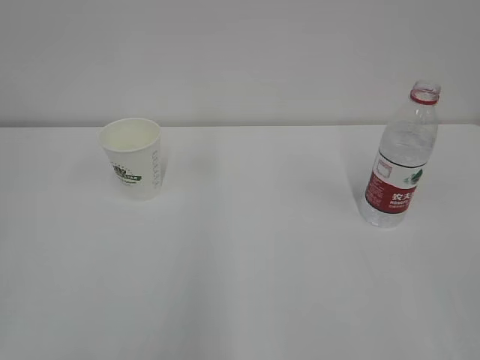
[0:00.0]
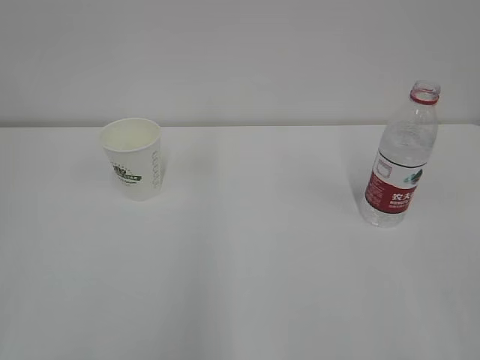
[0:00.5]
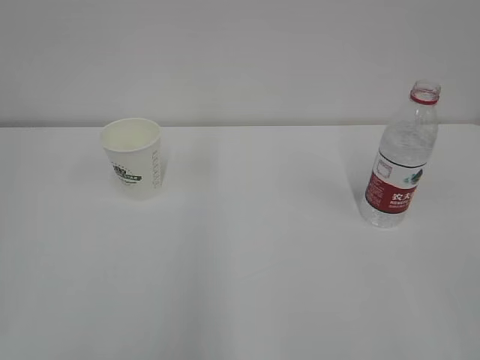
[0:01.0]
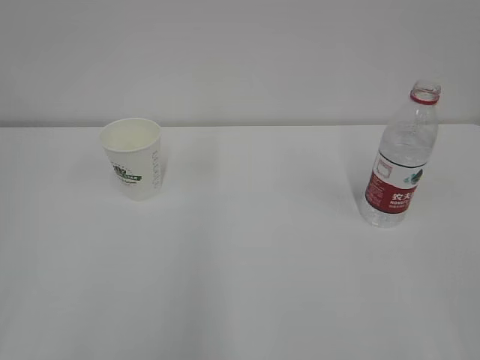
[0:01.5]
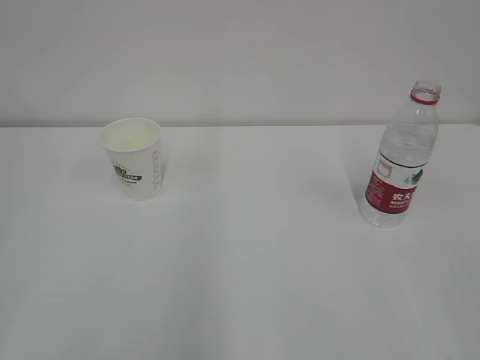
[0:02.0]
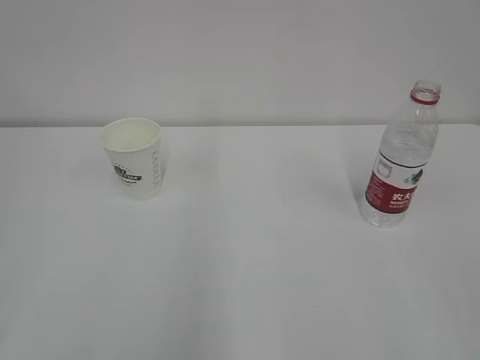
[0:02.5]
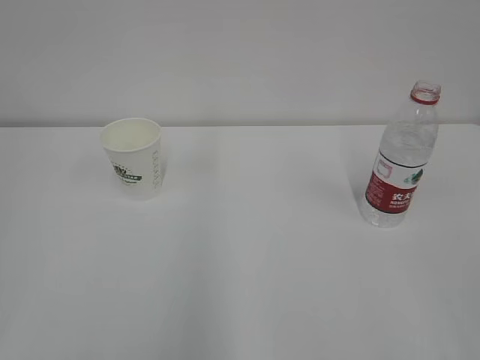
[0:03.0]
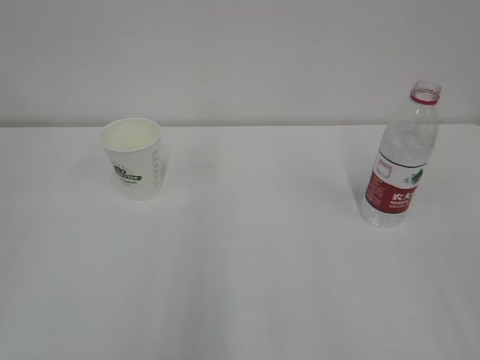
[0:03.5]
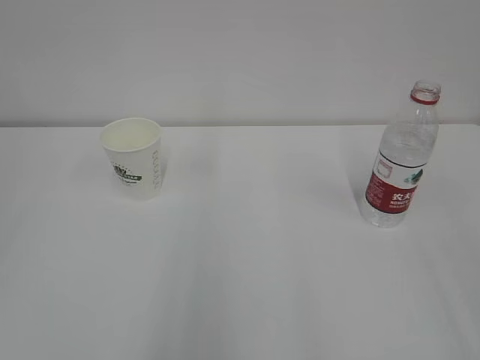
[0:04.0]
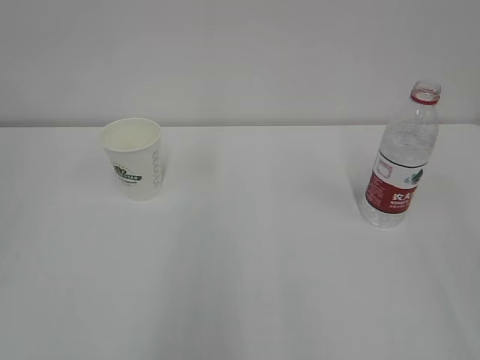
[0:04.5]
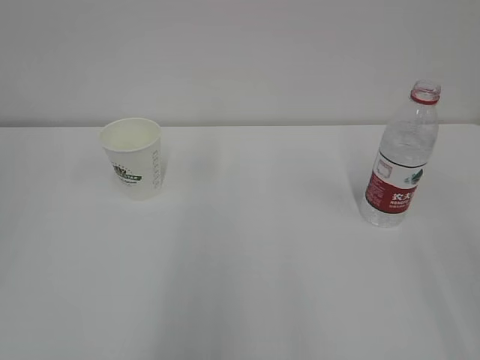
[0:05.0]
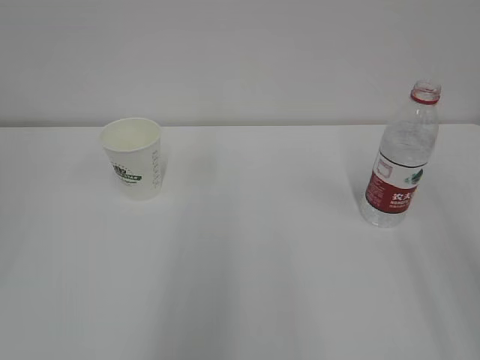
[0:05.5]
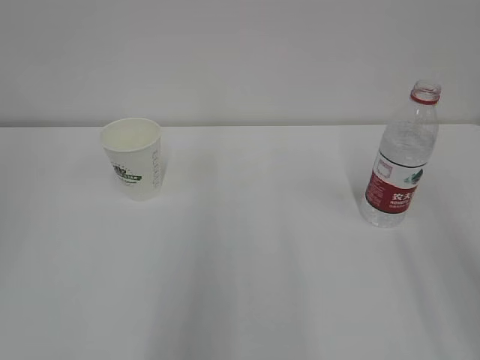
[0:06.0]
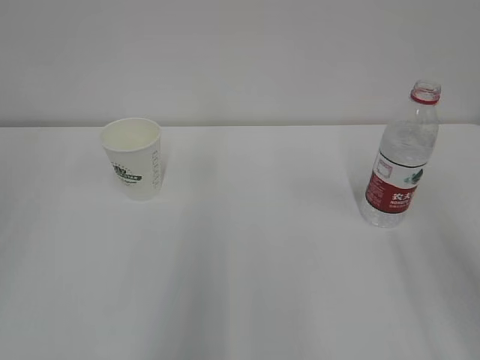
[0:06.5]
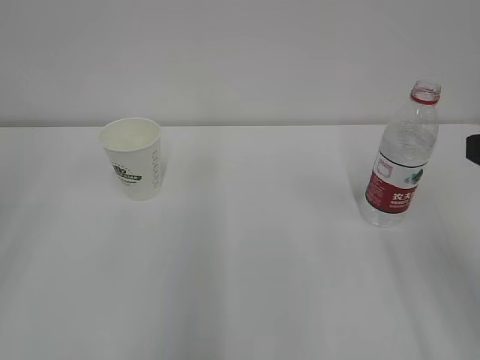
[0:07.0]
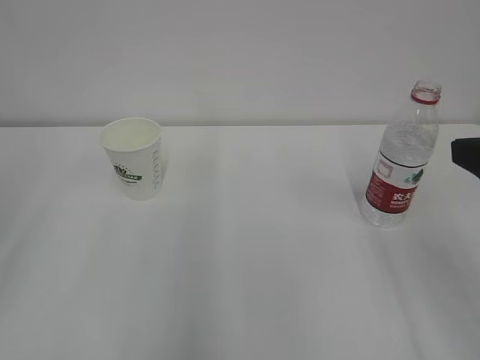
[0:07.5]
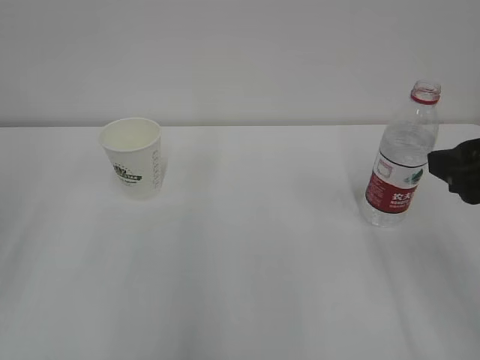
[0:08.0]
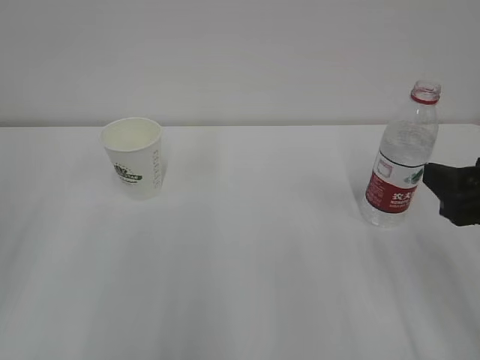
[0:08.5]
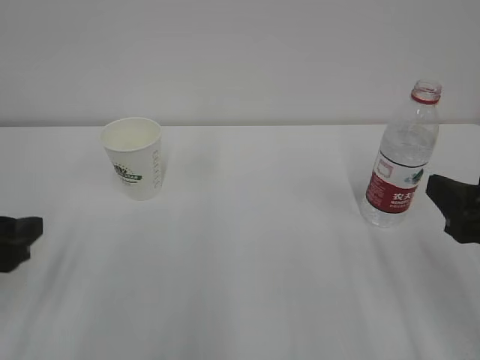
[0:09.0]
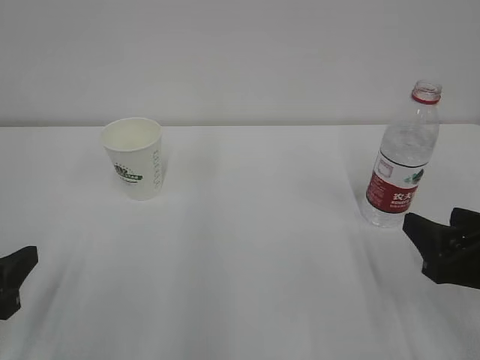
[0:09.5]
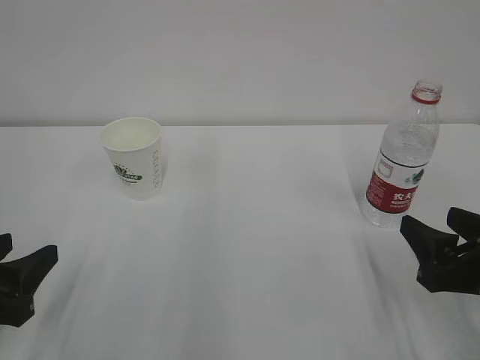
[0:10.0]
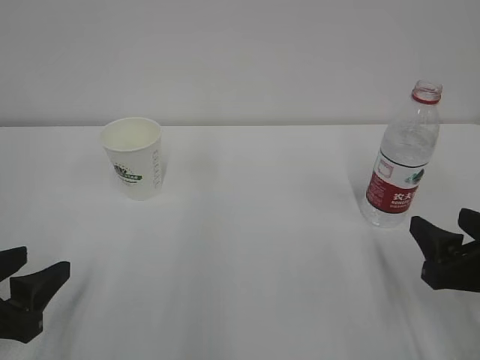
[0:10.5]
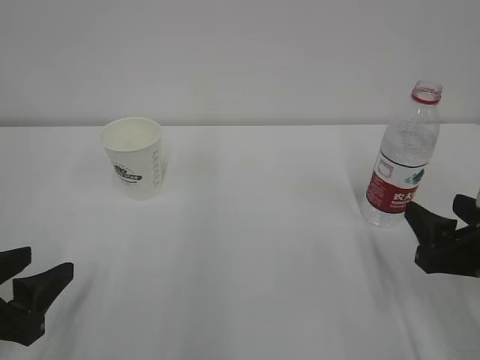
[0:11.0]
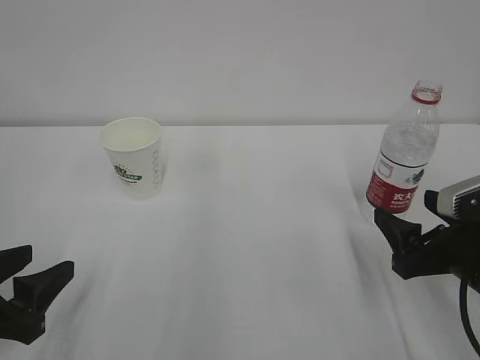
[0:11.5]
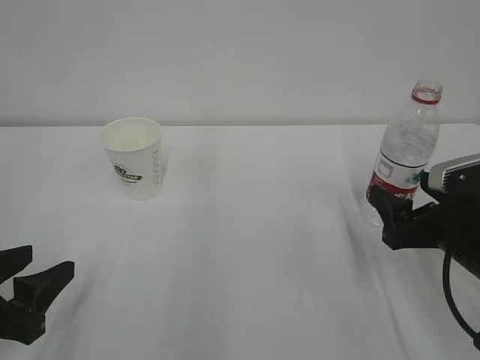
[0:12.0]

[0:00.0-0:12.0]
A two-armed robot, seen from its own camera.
0:06.0 to 0:08.0: The right gripper moves forward and downward, approximately 15 cm.
0:08.0 to 0:10.0: Both grippers travel together downward, roughly 15 cm.
0:10.0 to 0:12.0: The right gripper shifts about 5 cm forward, and opens up.

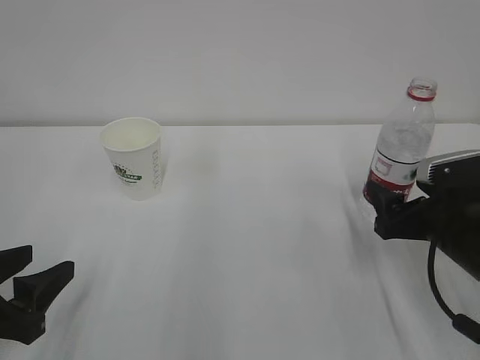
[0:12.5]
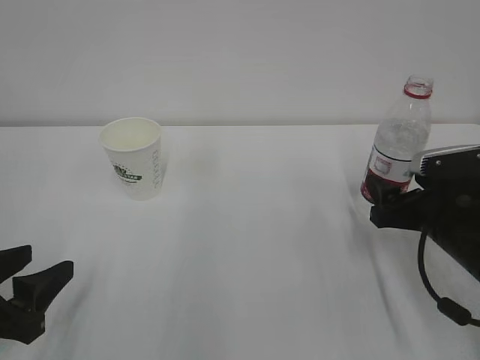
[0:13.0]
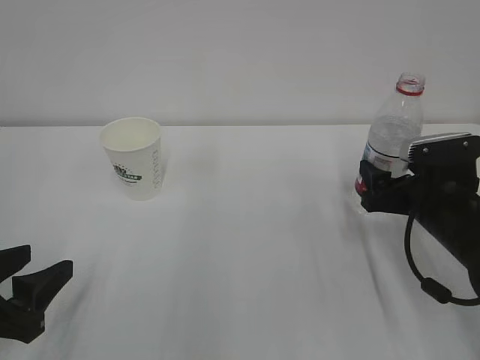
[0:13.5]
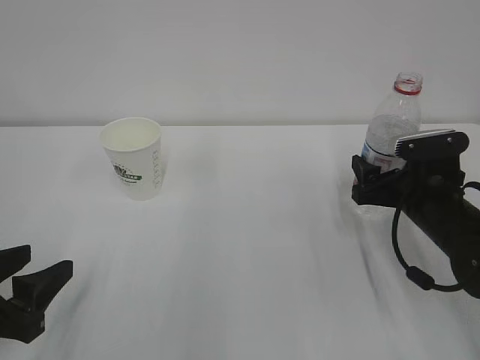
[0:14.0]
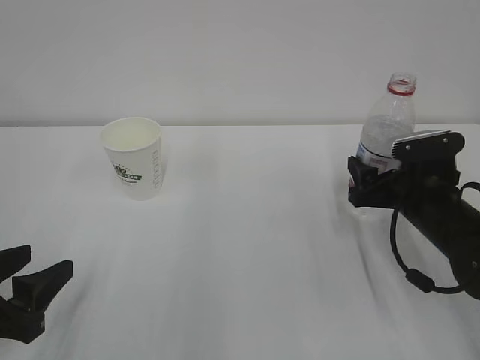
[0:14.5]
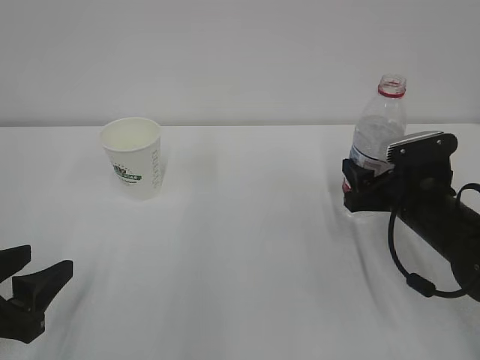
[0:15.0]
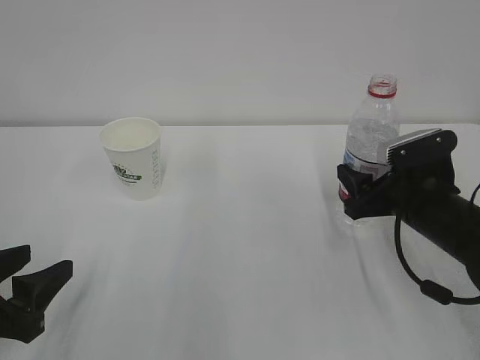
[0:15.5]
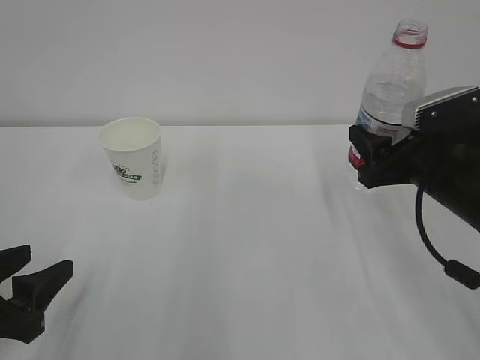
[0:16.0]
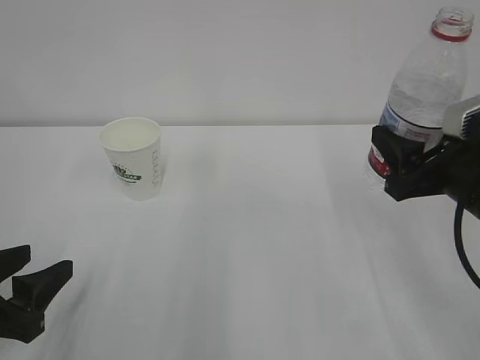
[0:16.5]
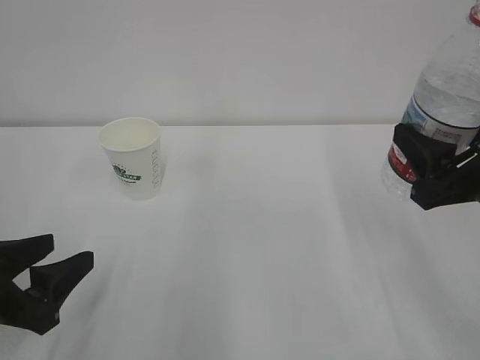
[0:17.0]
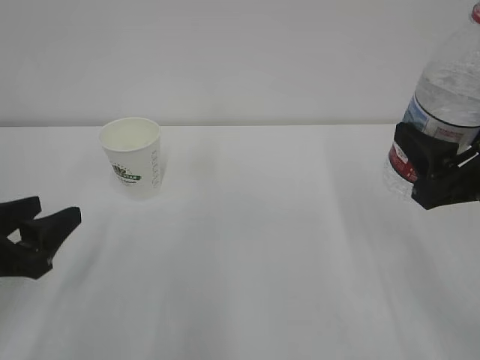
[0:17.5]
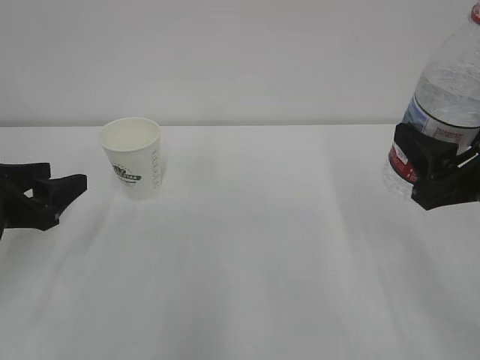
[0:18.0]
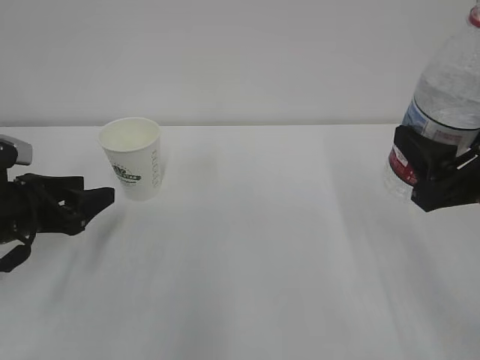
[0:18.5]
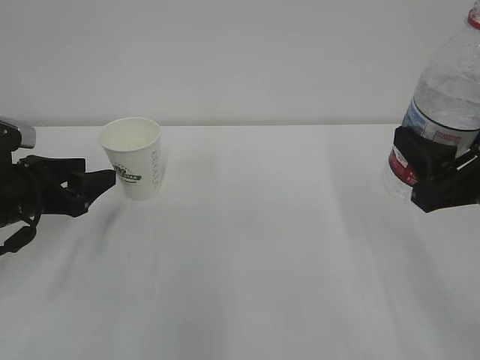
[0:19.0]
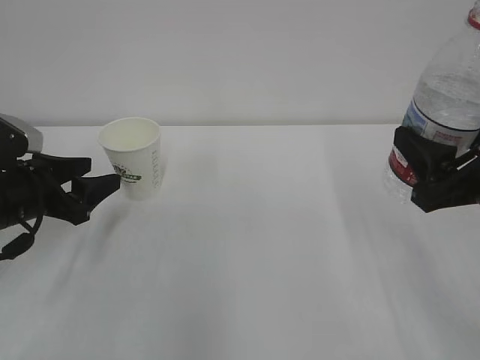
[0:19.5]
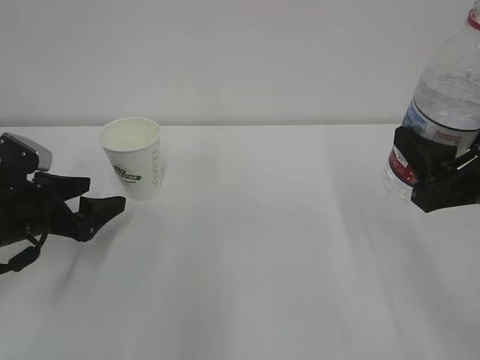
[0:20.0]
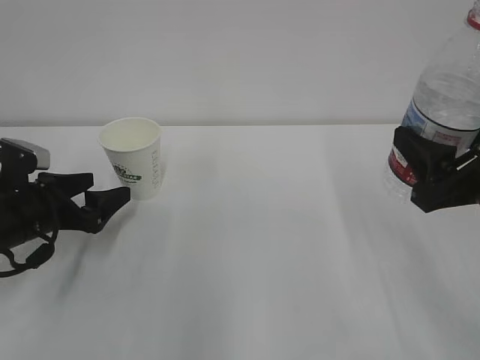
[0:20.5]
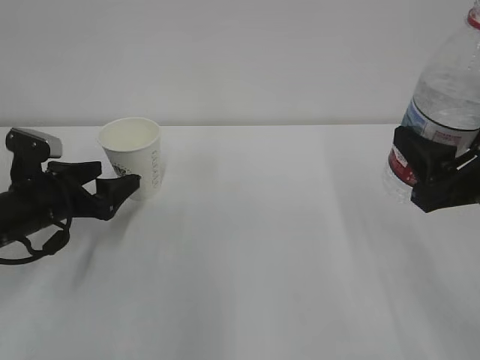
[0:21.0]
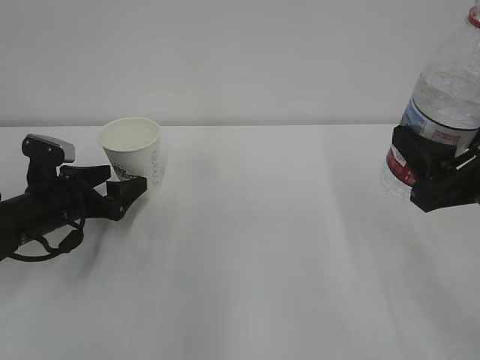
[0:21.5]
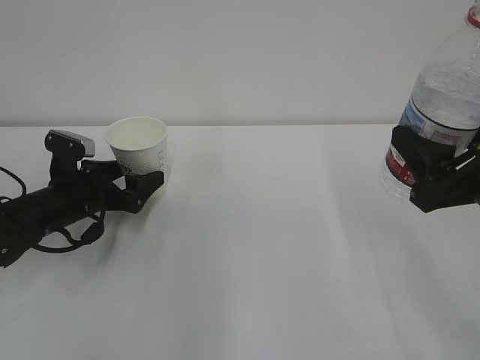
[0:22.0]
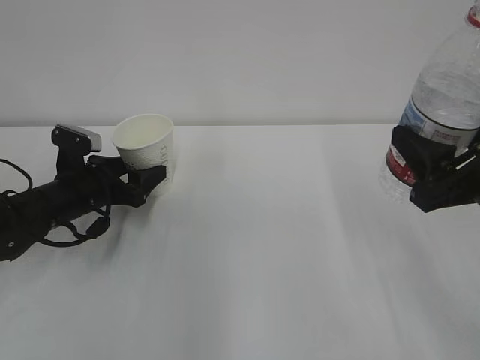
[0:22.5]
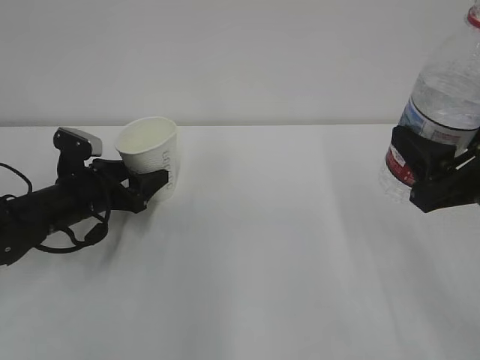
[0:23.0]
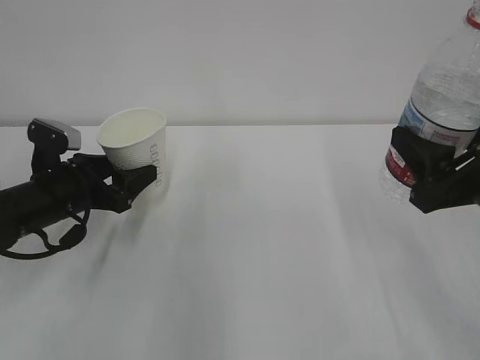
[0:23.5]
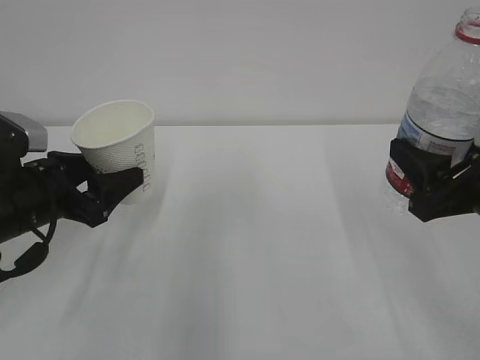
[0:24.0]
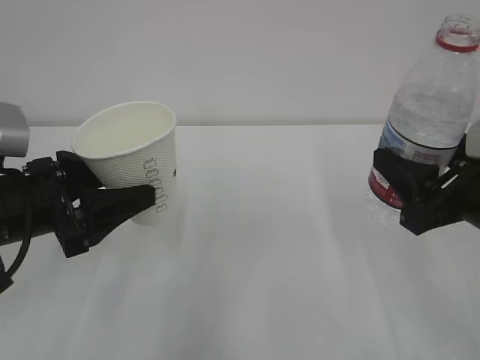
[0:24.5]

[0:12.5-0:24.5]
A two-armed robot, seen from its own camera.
0:12.5 to 0:14.5: The right gripper travels forward by some 5 cm, and closes its fingers.
0:14.5 to 0:16.5: The right gripper shifts approximately 10 cm upward and backward, and closes up.
0:16.5 to 0:18.5: The left gripper goes about 15 cm forward.
0:18.5 to 0:20.5: The left gripper opens.
0:20.5 to 0:22.5: The left gripper moves forward, about 5 cm, and closes its fingers.
0:22.5 to 0:24.5: The left gripper shifts about 15 cm backward and upward.

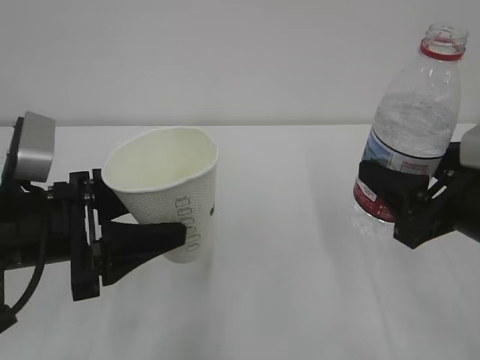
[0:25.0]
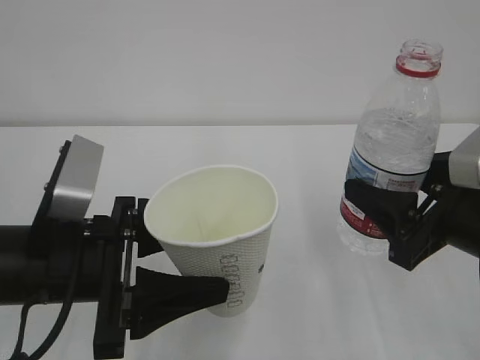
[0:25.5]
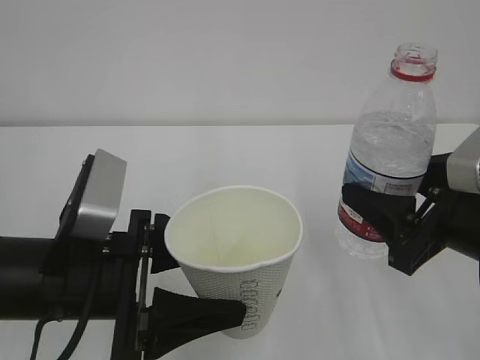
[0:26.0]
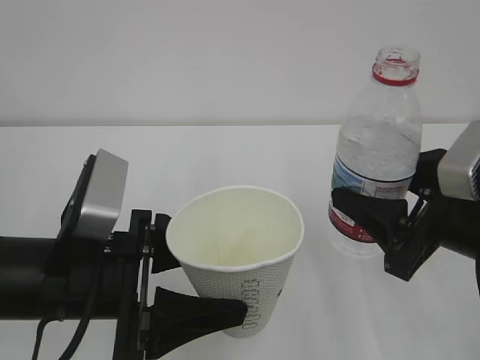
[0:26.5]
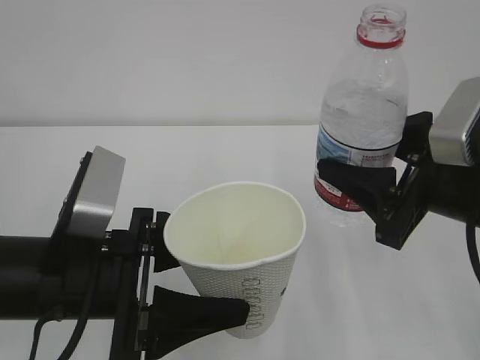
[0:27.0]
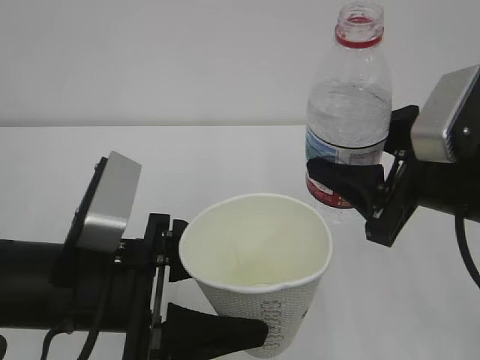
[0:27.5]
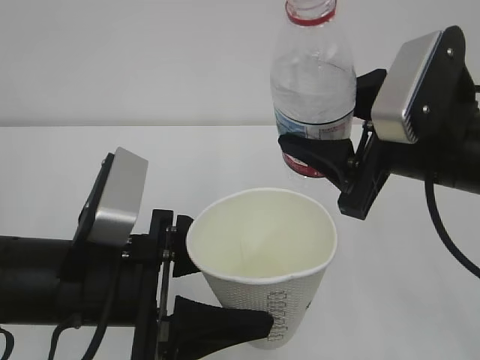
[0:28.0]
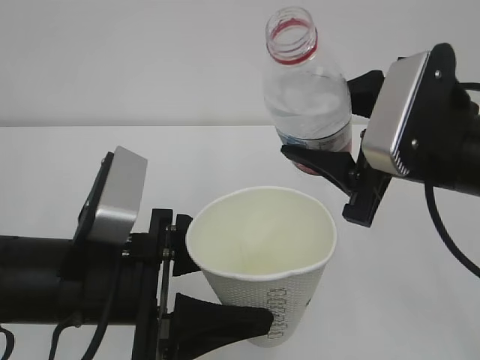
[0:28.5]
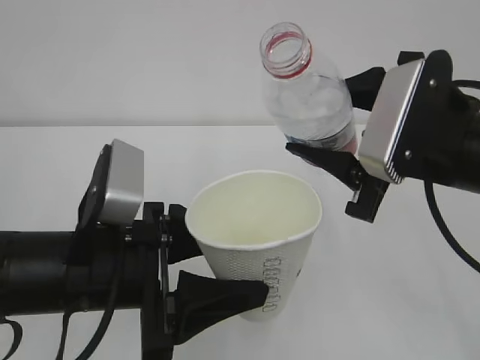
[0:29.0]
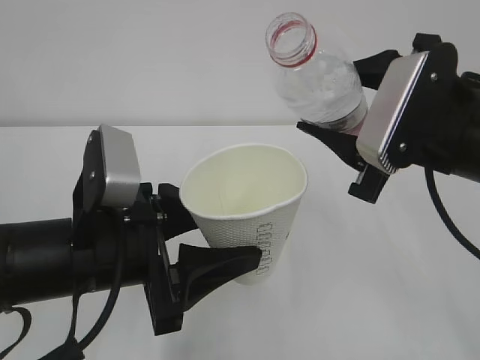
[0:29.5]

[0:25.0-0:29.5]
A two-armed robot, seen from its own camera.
0:25.0 to 0:27.0: The left gripper is displaced to the right by some 5 cm.
